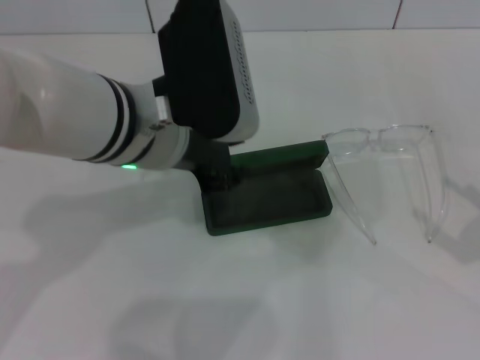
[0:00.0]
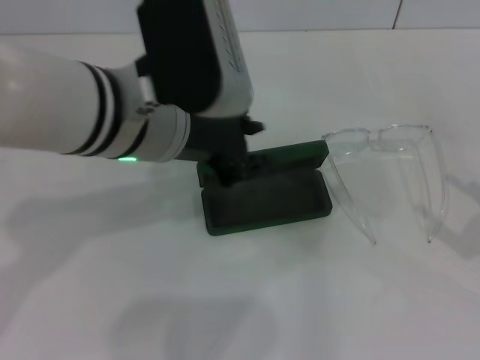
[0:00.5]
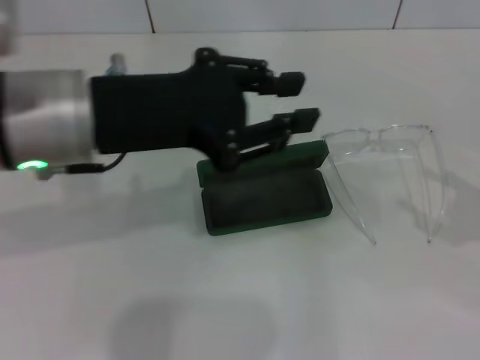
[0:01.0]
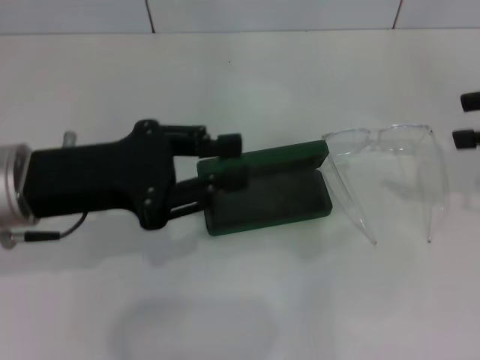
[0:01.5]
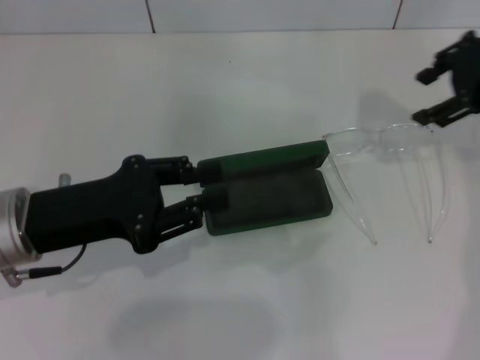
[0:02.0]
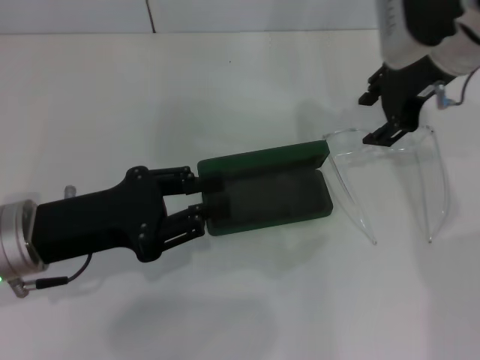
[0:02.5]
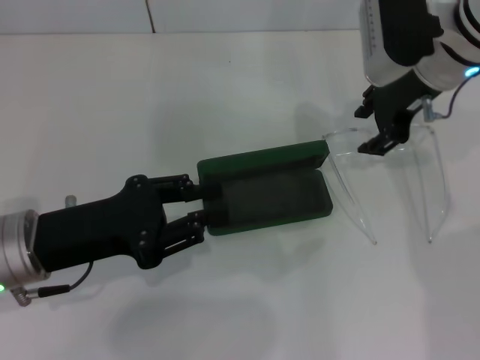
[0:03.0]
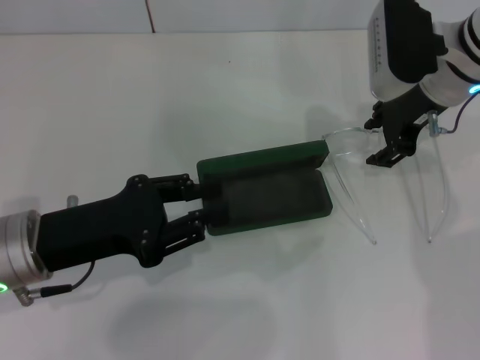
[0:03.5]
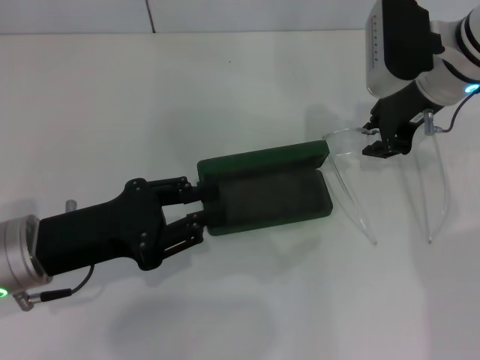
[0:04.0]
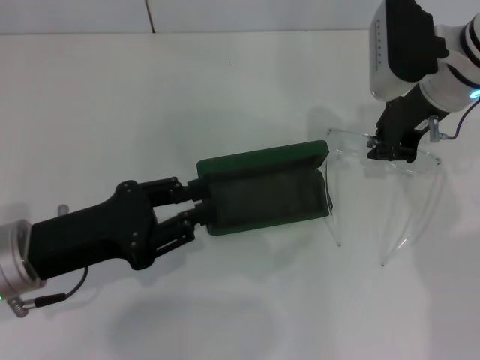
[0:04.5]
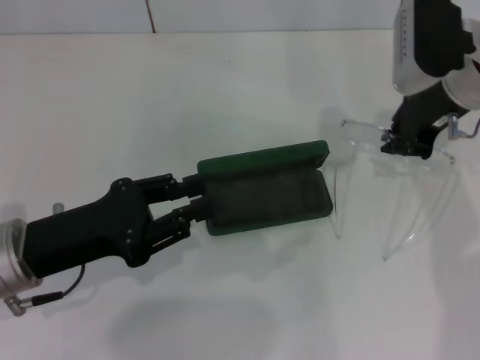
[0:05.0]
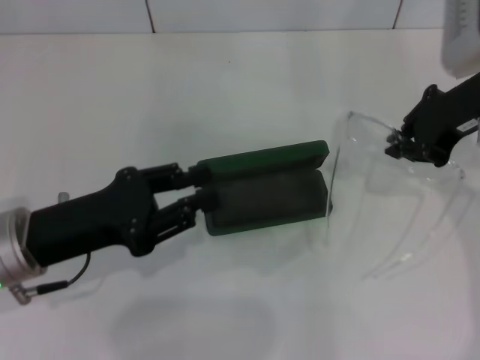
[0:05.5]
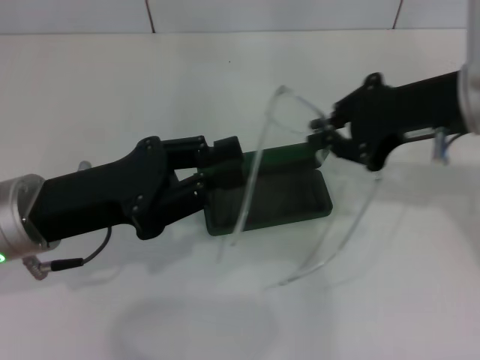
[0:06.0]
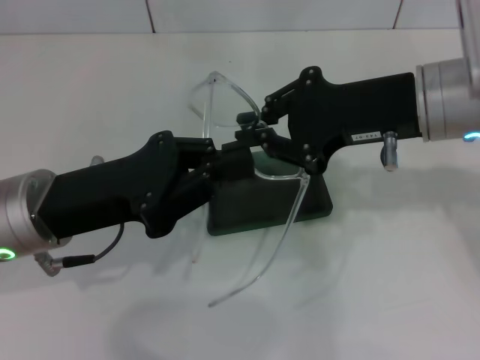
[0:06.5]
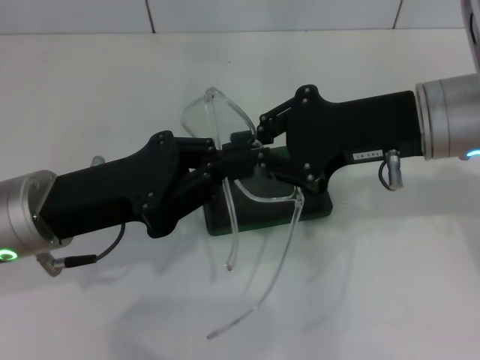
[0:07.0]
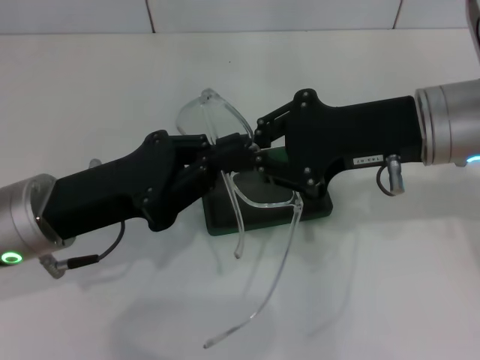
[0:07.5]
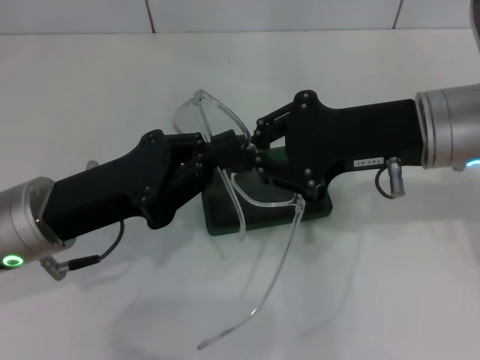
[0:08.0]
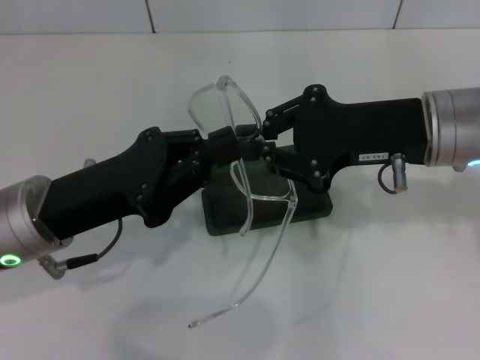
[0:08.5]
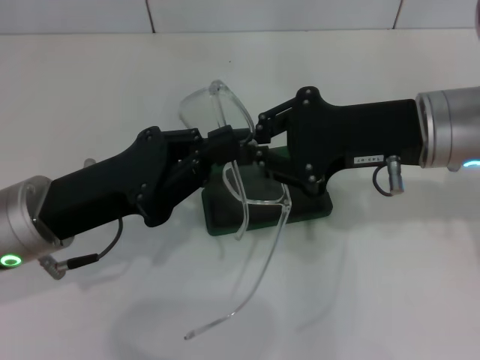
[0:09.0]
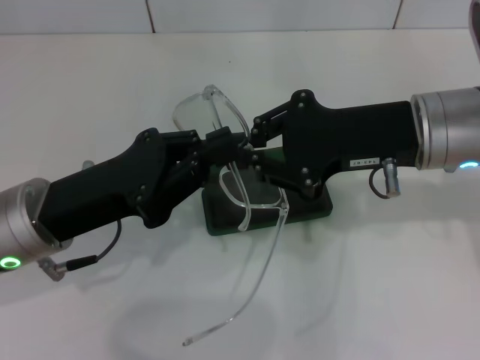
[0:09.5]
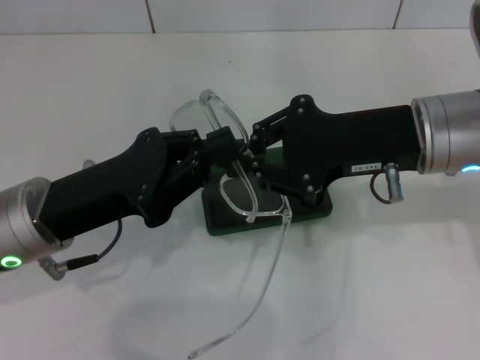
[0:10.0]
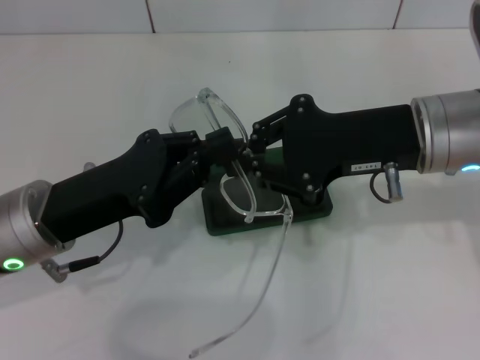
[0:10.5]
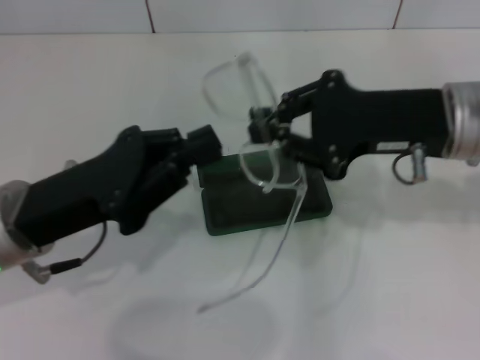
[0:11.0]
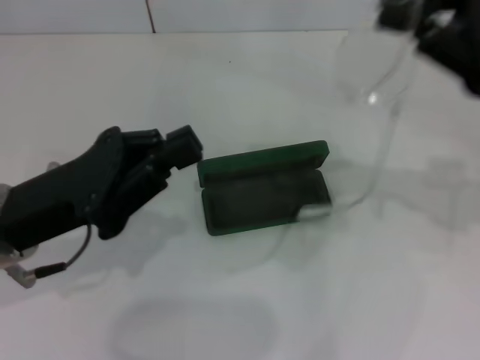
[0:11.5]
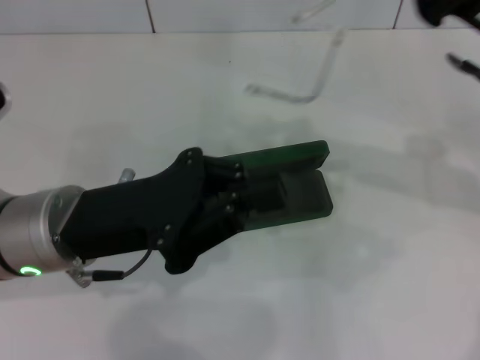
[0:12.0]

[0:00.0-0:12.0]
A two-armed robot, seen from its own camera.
Step, 0:00.0 to 0:04.0: Grab the eyeglass frame with your right hand.
0:00.0 to 0:02.0: The right gripper travels forward, upward and to the left by about 30 cm; the left gripper heads to the left and downward, covering about 15 cm.
0:02.0 to 0:04.0: The right gripper shifts approximately 10 cm to the left and downward.
0:04.0 to 0:06.0: The right gripper shifts roughly 10 cm backward and upward, and closes up.
0:08.0 to 0:10.0: The two grippers keep their place.
0:10.0 to 0:12.0: The right gripper moves to the right, roughly 5 cm.

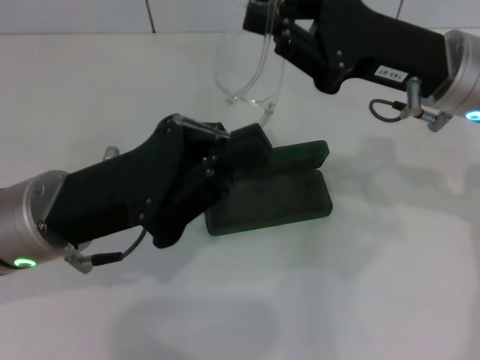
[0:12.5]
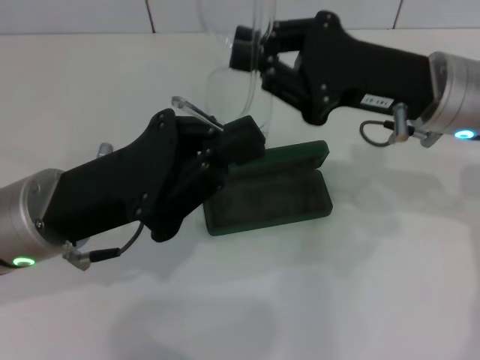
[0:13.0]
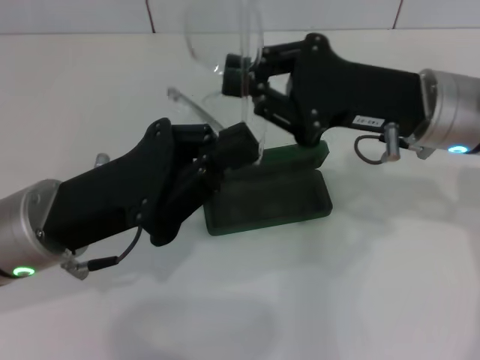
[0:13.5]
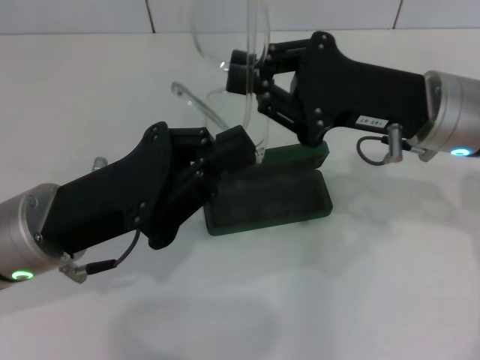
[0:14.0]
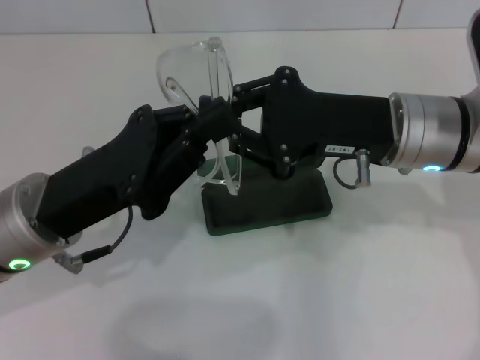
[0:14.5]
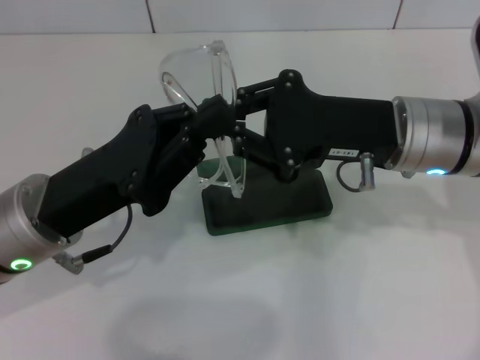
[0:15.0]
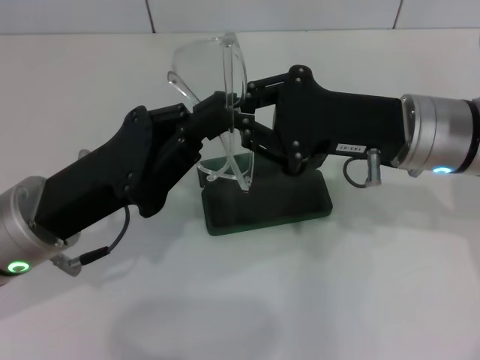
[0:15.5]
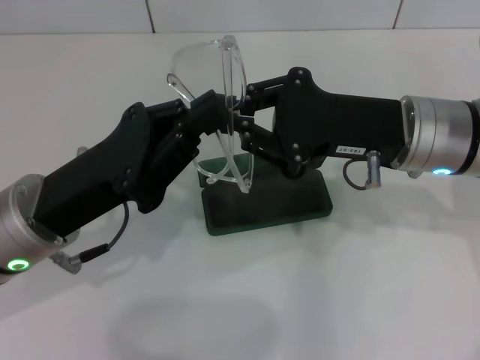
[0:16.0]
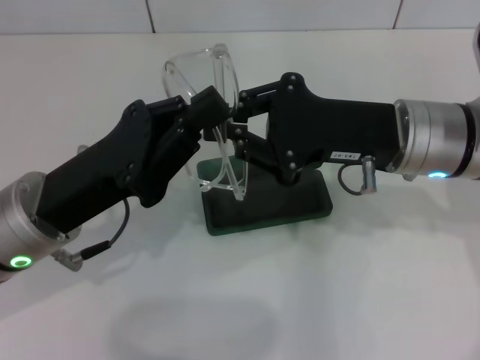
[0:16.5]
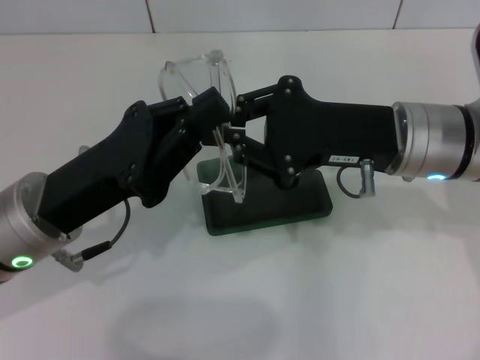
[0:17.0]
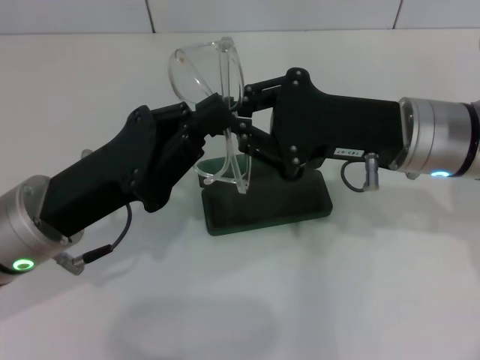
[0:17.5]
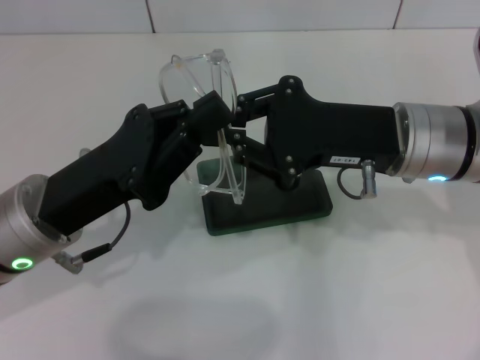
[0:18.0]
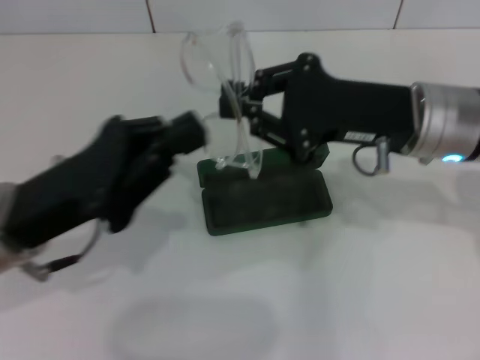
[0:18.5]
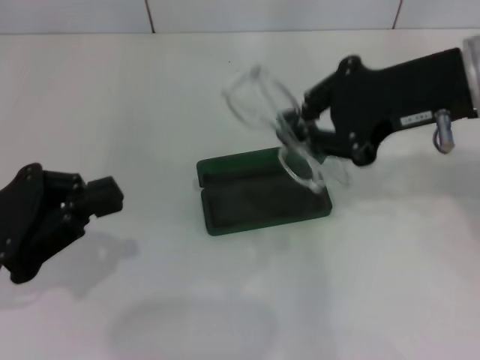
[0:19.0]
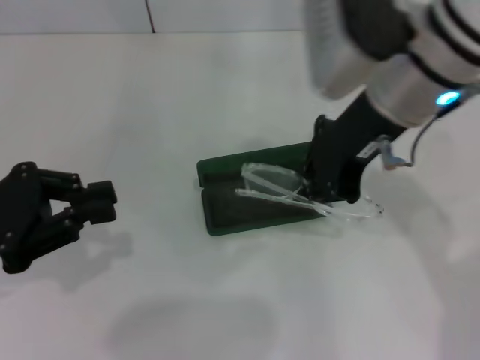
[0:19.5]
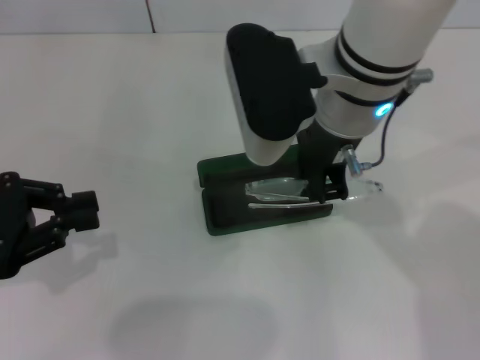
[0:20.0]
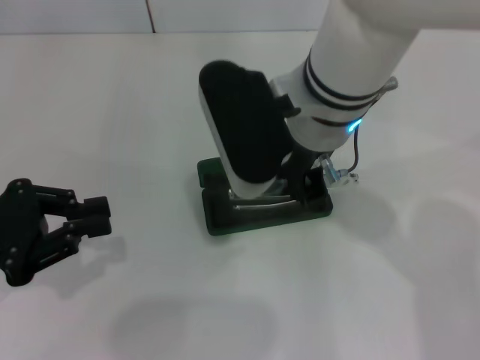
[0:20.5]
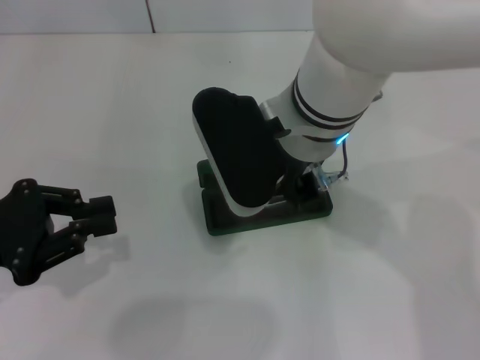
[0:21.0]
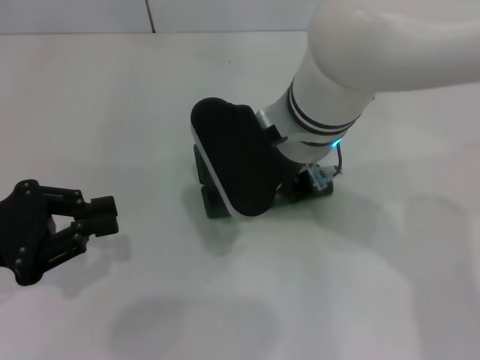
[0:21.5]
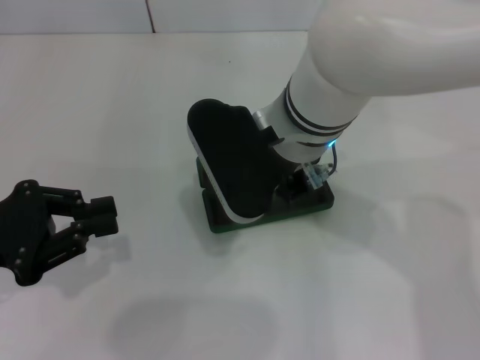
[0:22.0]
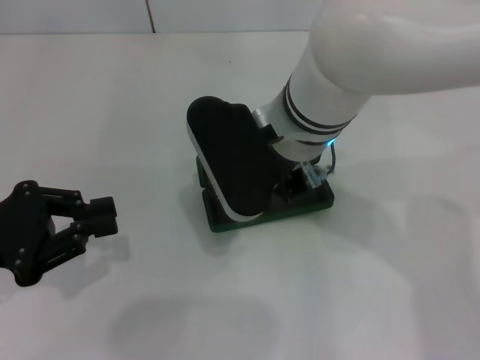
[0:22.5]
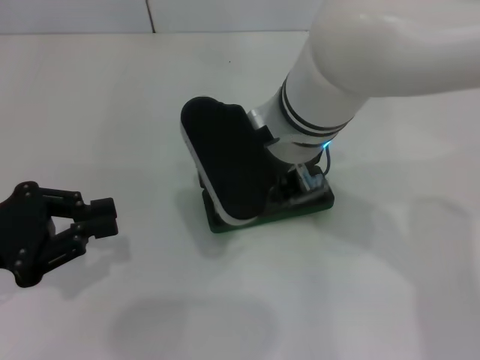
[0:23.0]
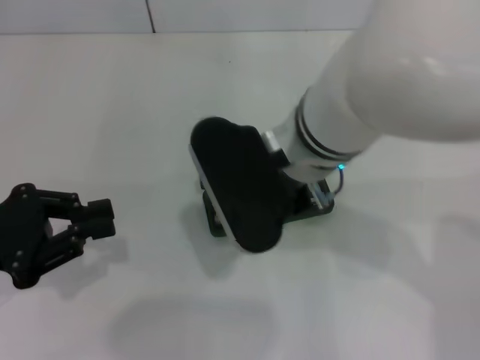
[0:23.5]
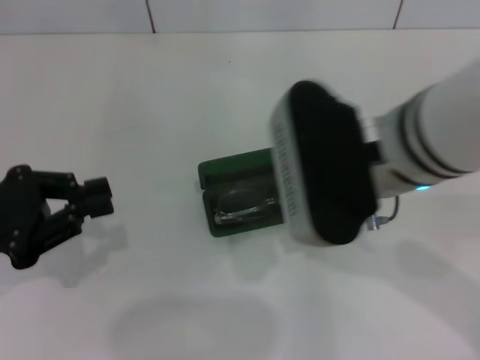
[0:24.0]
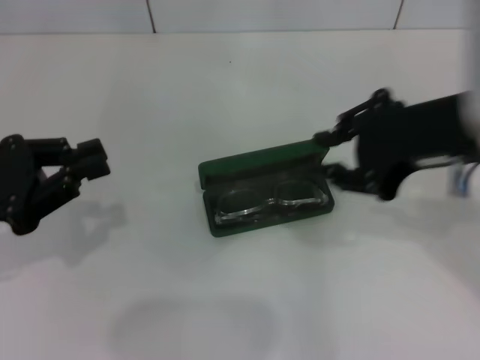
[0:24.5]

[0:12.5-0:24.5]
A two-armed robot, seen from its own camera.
Step, 0:12.5 to 0:18.0: Lift the glasses with your right hand.
Step, 0:18.5 to 0:23.0: Put the glasses into the case with your right hand.
0:14.5 to 0:16.5: Both grippers stay put.
0:16.5 to 0:18.5: The grippers stay close to where they were, moving slightly.
0:18.5 to 0:20.5: The two grippers go roughly 10 cm to the left.
0:20.5 to 0:22.5: The grippers move only a little.
0:22.5 to 0:24.5: The right gripper goes approximately 20 cm to the right, upward and backward.

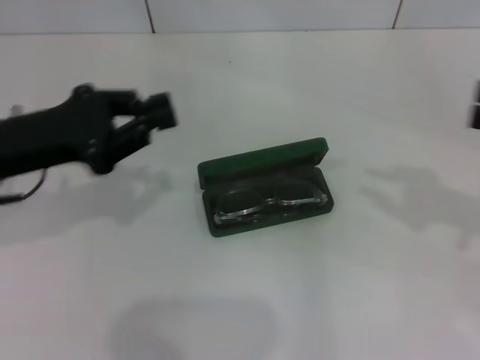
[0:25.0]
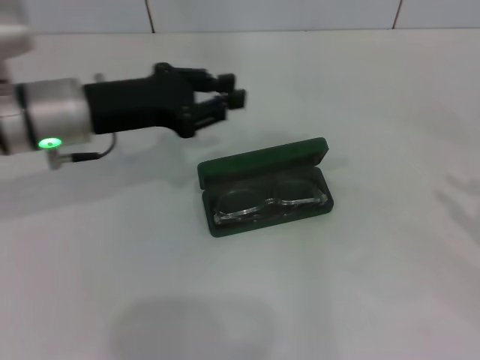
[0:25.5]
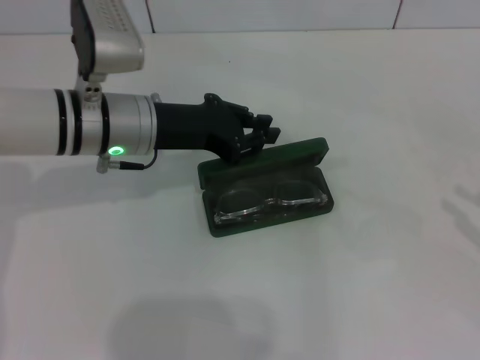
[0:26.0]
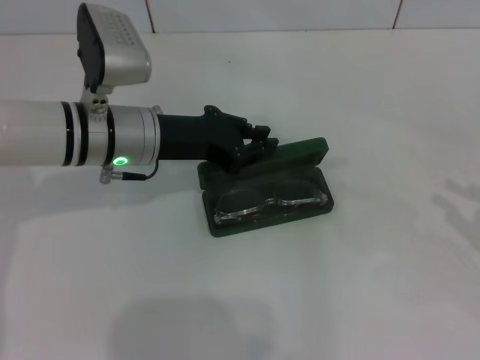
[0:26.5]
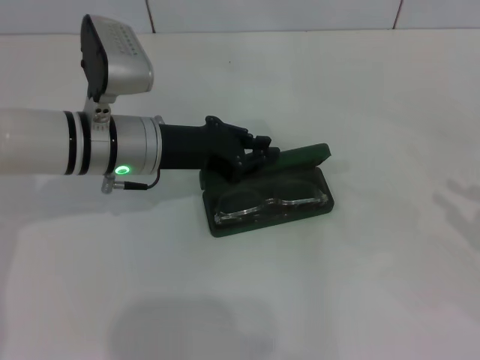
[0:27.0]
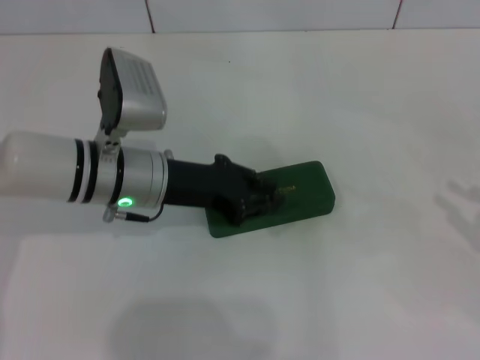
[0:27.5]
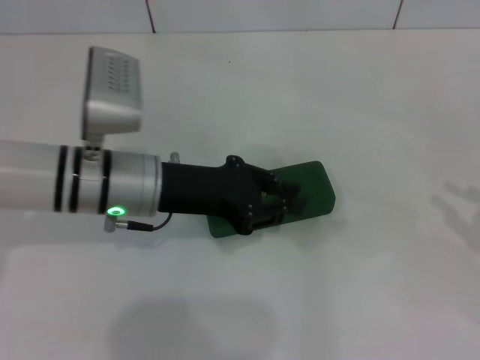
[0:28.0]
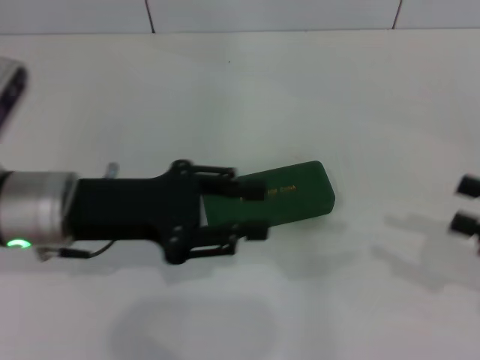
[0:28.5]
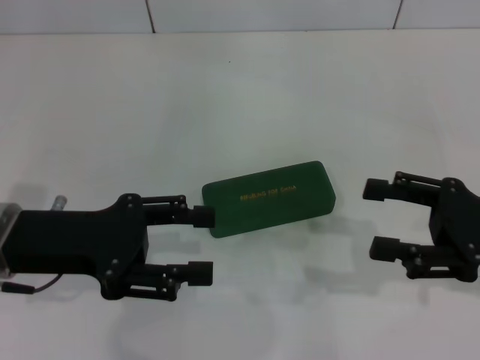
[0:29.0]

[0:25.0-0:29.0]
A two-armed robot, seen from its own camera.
Step, 0:25.0 to 0:27.5: Close the glasses case with your left hand.
0:25.0 to 0:27.0: The left gripper goes roughly 15 cm to the right and forward; the right gripper goes approximately 10 cm downward and to the right.
0:27.0 to 0:29.0: The left gripper moves backward and to the left, about 15 cm, and opens its fingers. The right gripper travels to the left by some 10 cm, and opens up.
